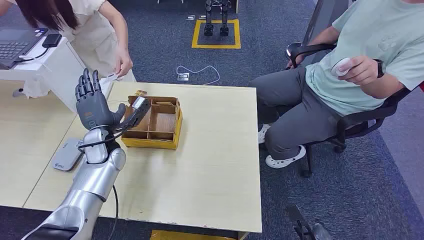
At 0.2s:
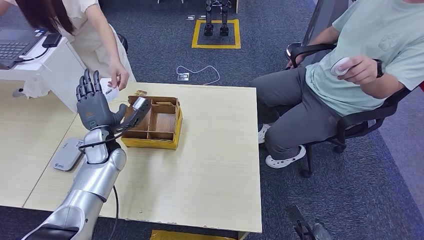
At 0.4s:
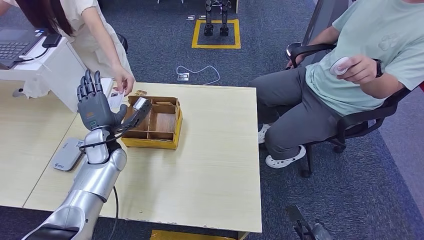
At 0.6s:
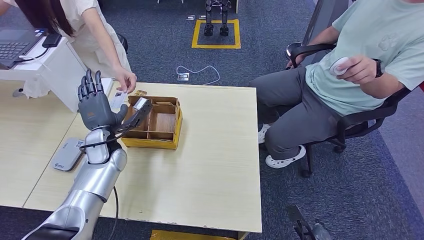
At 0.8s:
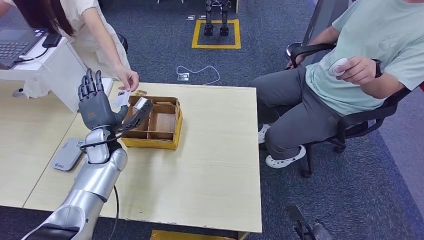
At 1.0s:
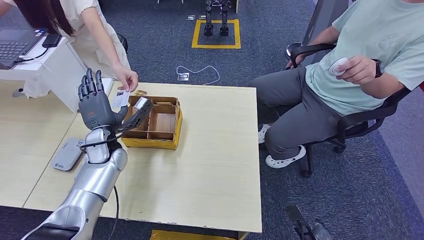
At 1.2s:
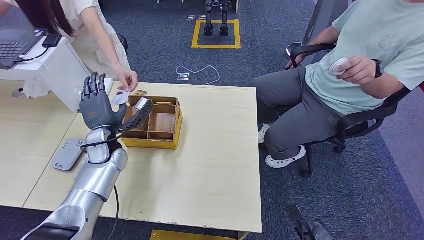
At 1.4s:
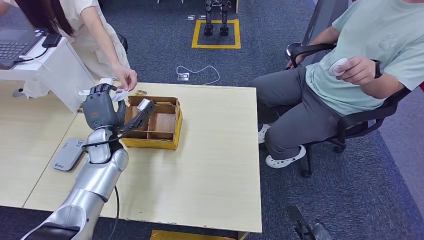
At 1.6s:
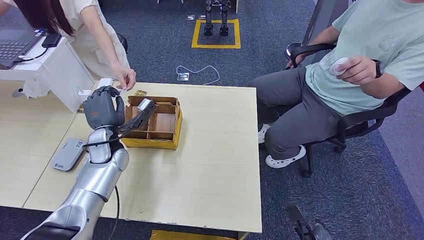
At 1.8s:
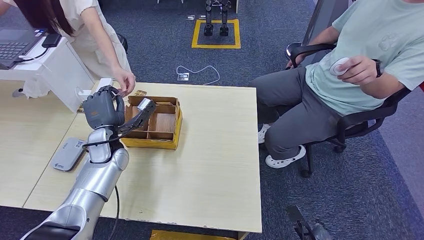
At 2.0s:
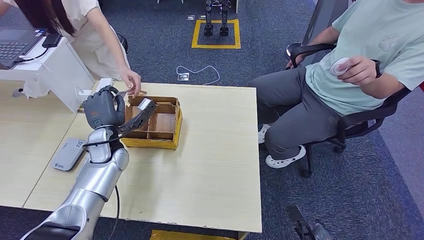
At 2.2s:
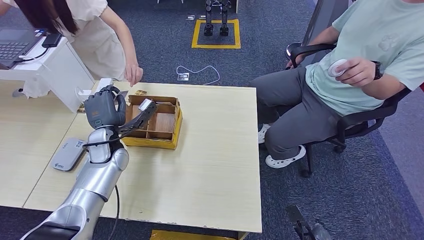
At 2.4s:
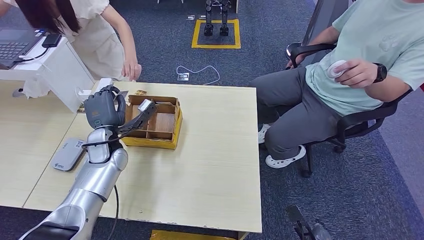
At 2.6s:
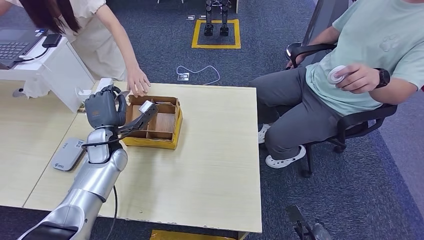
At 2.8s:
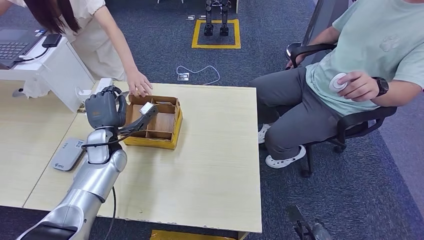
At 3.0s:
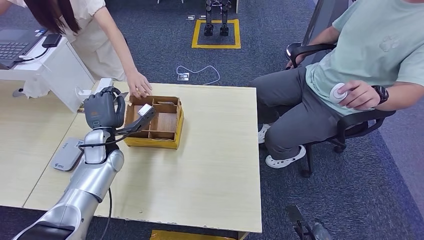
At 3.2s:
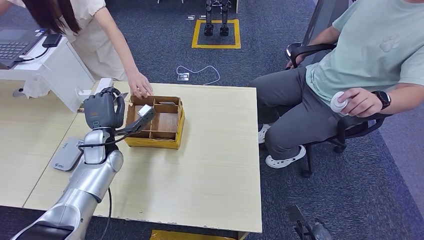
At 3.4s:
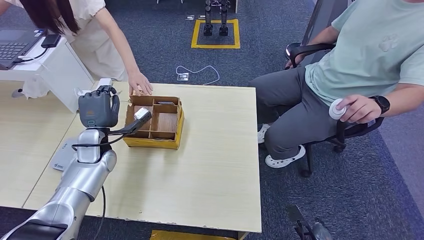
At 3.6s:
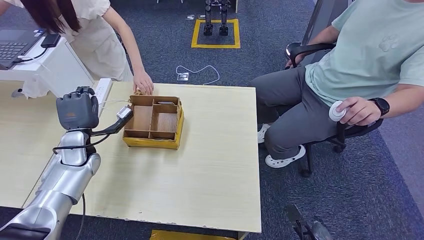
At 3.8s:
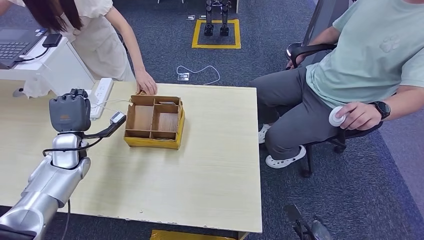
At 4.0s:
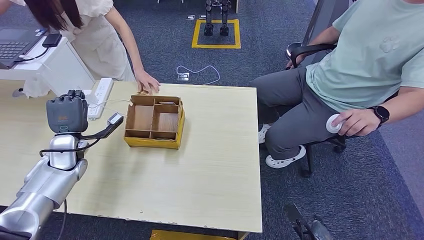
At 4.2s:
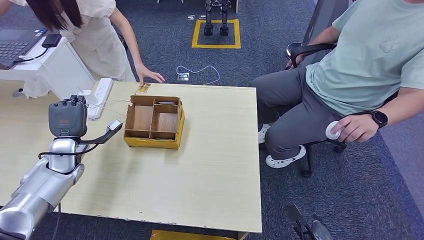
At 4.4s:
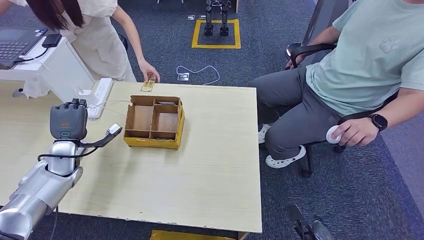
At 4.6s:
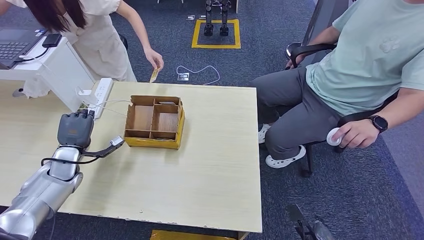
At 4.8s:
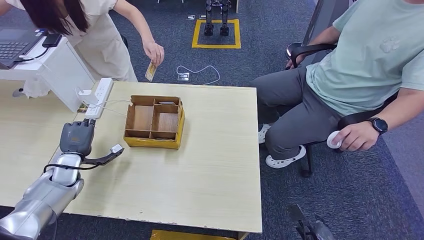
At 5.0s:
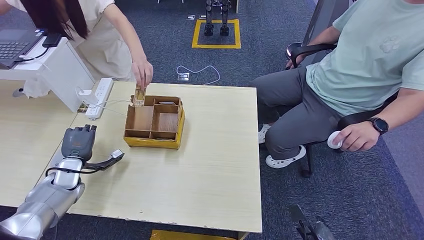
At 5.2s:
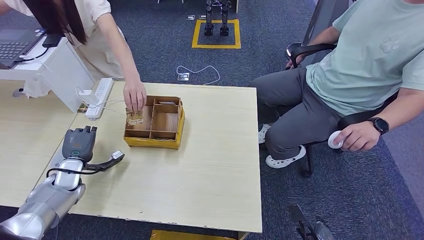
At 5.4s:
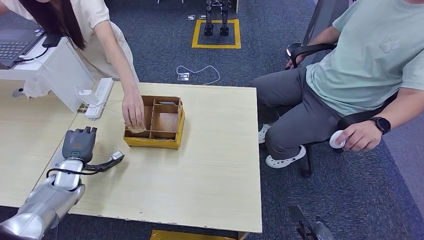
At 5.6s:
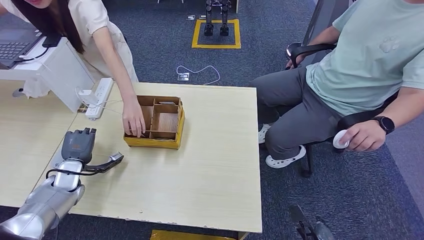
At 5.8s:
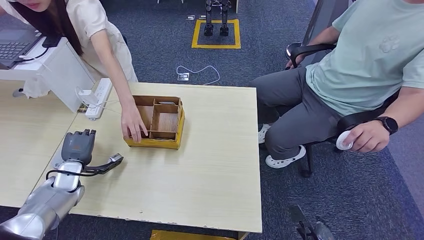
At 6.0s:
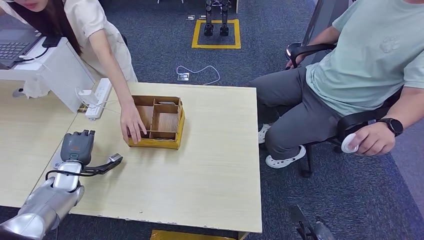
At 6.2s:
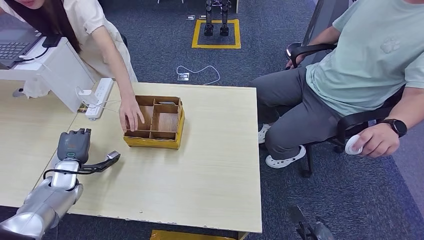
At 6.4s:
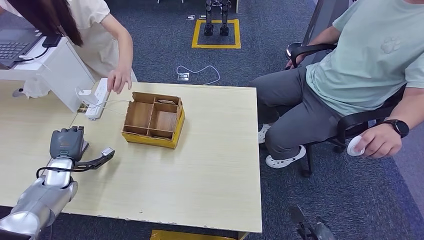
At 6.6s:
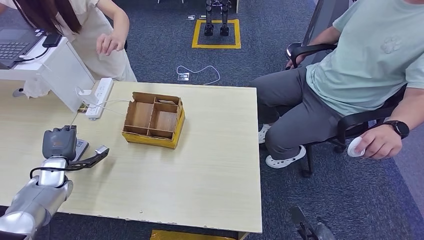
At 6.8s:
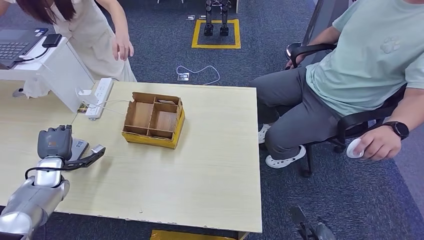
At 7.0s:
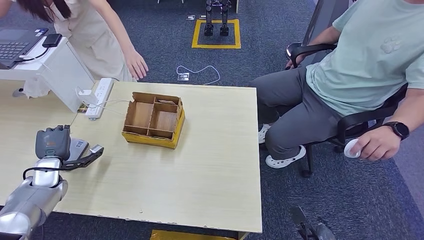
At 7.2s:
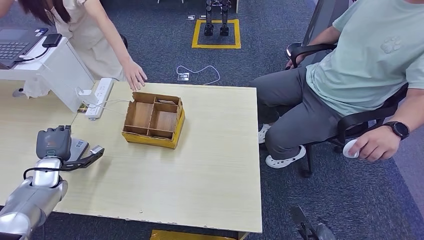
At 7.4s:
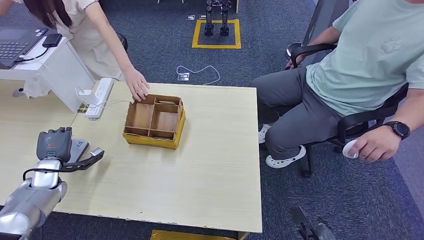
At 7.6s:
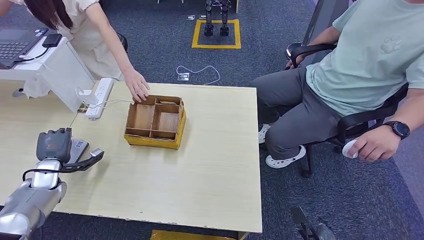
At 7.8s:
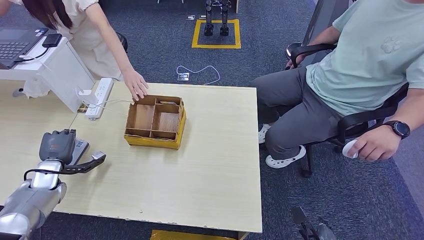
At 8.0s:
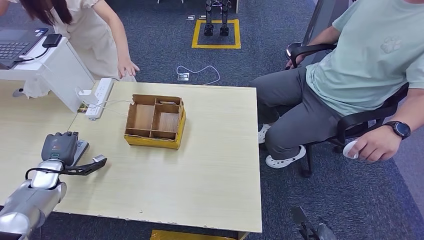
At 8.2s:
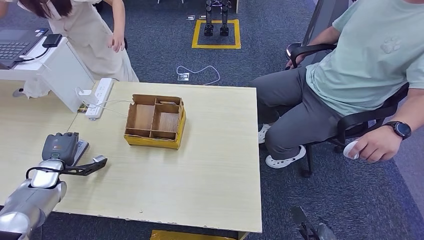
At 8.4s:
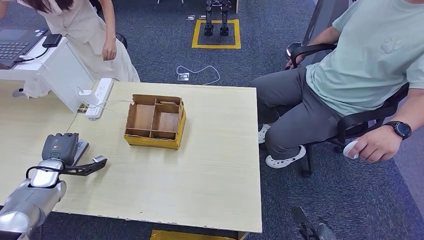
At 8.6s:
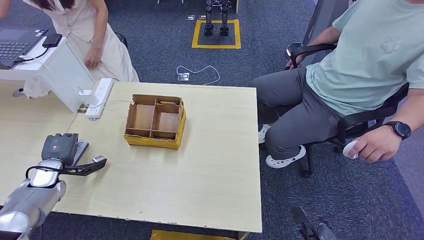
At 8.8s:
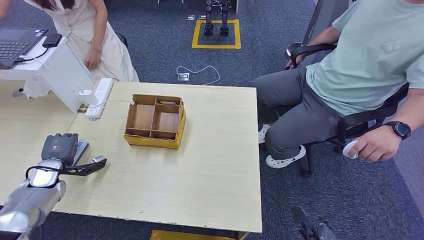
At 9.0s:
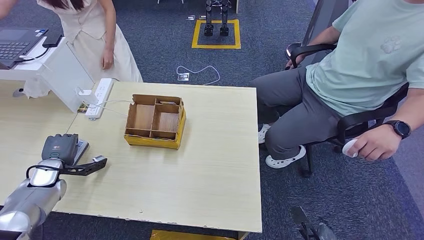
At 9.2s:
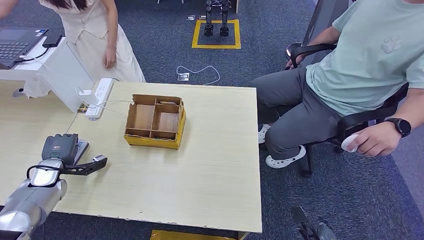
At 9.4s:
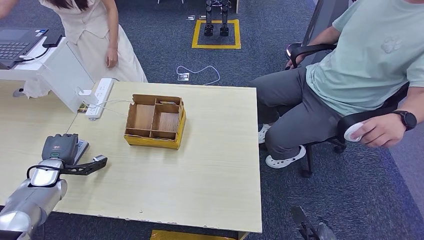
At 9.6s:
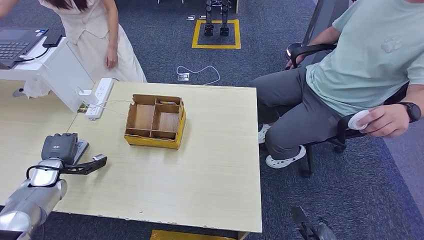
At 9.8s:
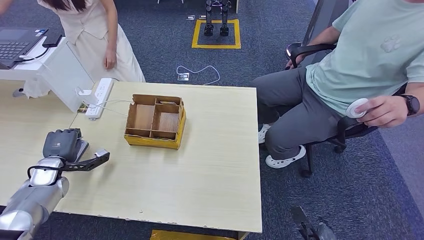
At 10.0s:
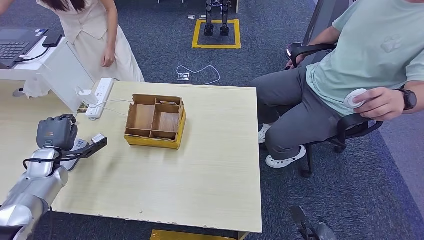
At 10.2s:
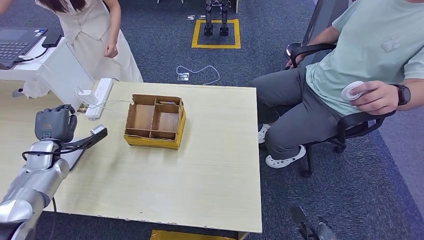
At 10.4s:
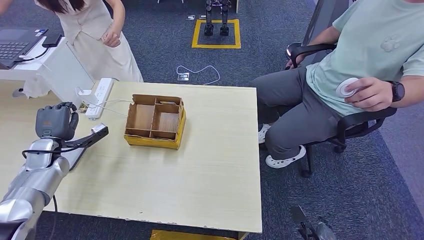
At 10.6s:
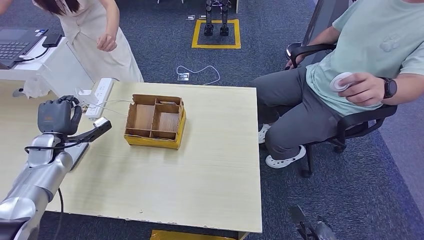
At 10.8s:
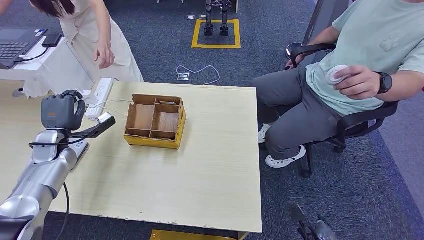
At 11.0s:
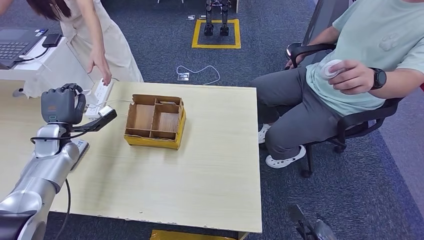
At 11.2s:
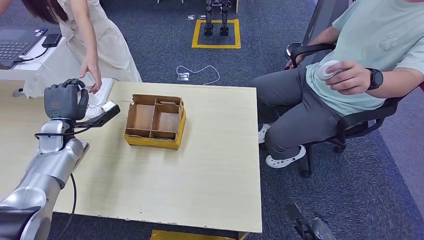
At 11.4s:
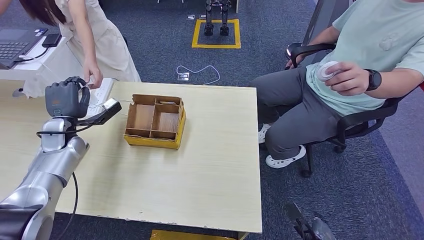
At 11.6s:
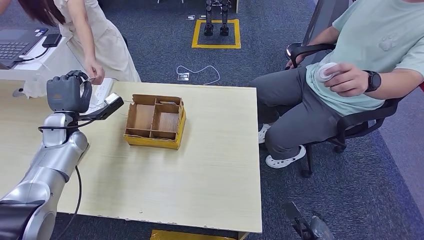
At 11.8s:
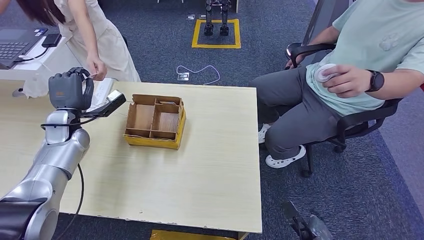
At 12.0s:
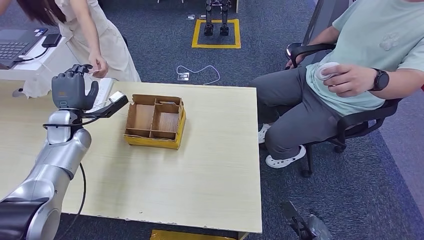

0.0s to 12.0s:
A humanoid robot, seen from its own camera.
Step, 0.0s to 1.8s: Take the ID card from the person's hand.
Step, 2.2s to 9.0s: Place the ID card on the card reader.
1.6s to 3.0s: The hands move only a little.
3.0s to 4.4s: The left hand goes some 10 cm to the left.
4.4s to 6.0s: The left hand goes approximately 5 cm downward.
6.0s to 7.6s: The left hand heads to the left, covering about 5 cm.
7.6s to 9.0s: There are only small adjustments of the hands.
9.0s to 10.4s: The left hand moves upward, roughly 5 cm.
10.4s to 12.0s: The left hand heads to the right, upward and forward, covering approximately 10 cm.

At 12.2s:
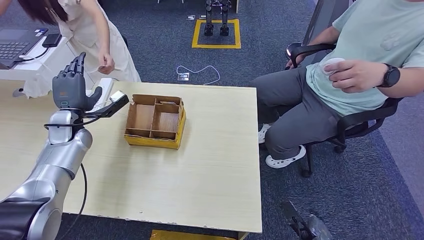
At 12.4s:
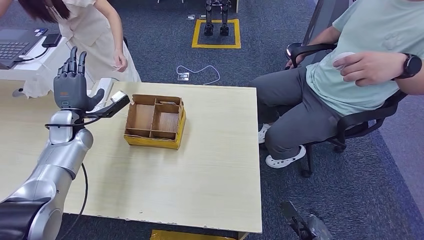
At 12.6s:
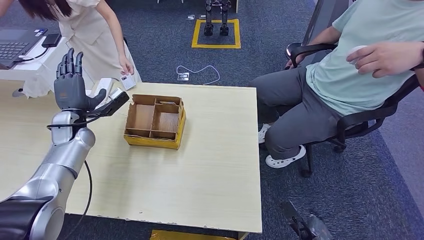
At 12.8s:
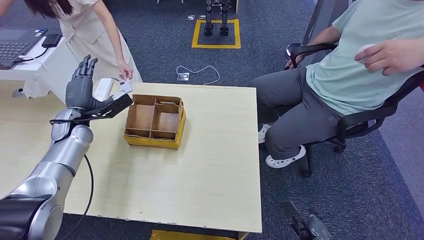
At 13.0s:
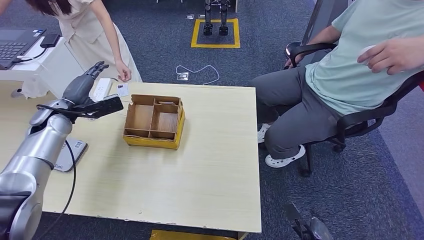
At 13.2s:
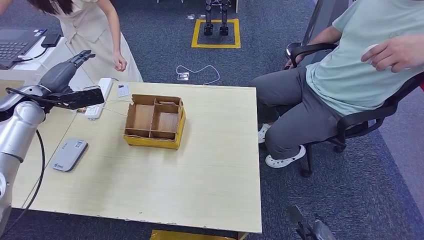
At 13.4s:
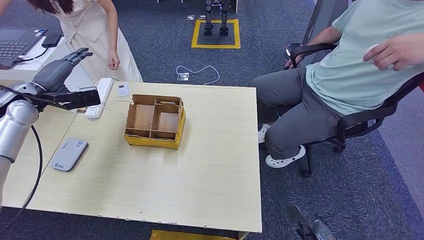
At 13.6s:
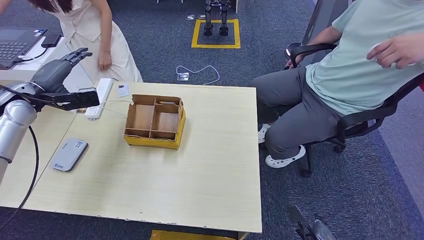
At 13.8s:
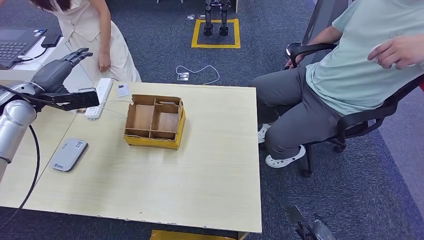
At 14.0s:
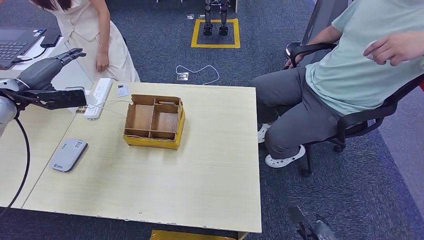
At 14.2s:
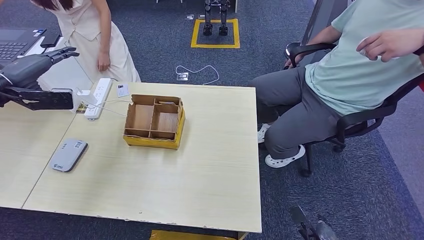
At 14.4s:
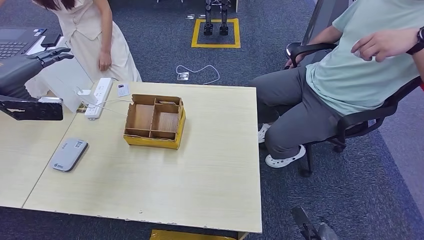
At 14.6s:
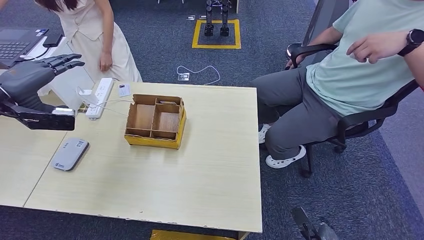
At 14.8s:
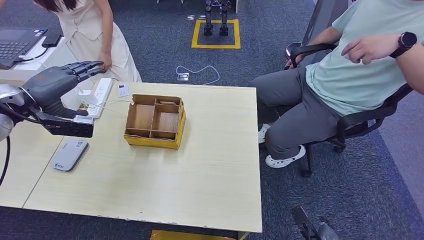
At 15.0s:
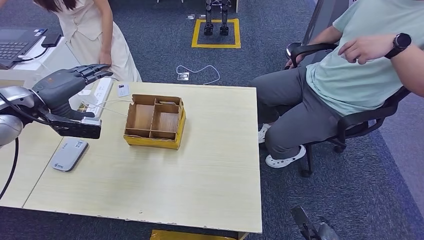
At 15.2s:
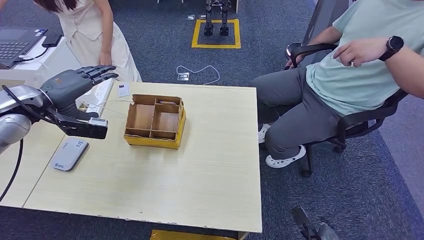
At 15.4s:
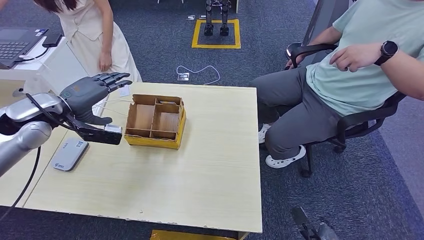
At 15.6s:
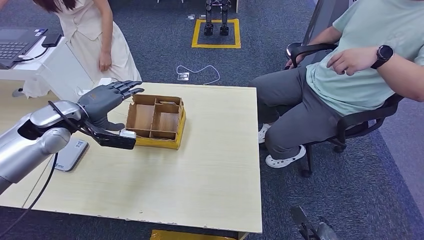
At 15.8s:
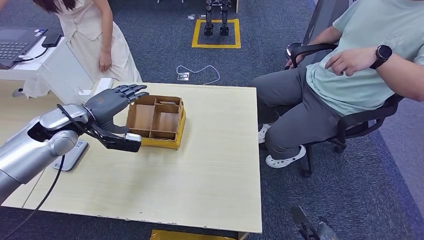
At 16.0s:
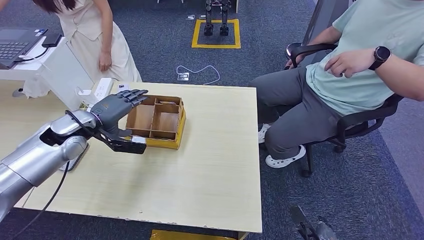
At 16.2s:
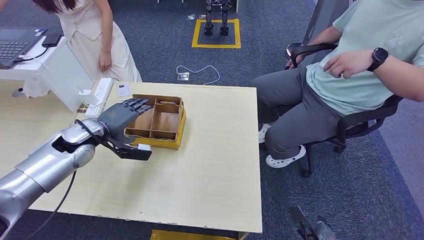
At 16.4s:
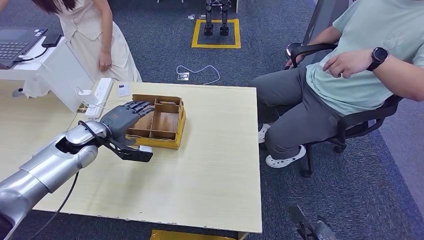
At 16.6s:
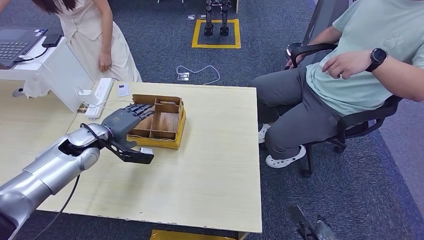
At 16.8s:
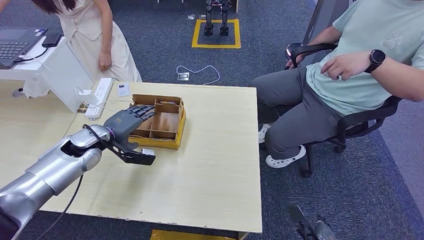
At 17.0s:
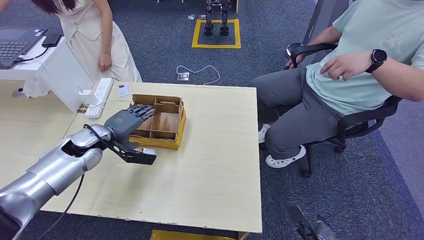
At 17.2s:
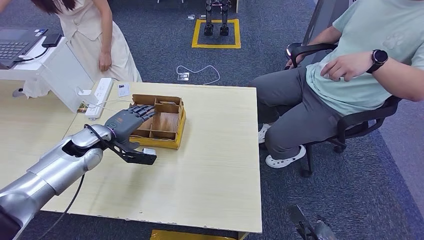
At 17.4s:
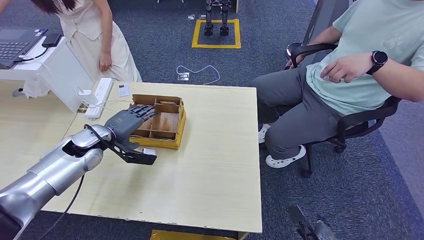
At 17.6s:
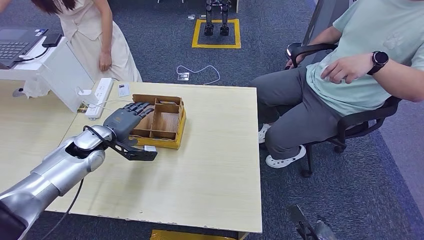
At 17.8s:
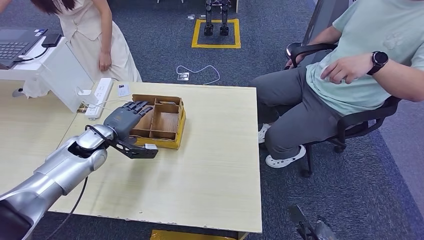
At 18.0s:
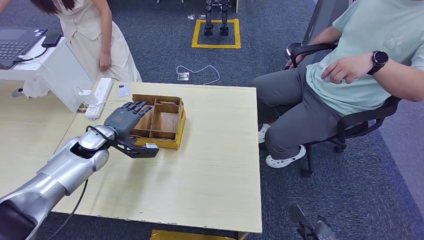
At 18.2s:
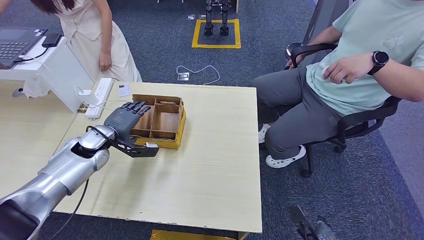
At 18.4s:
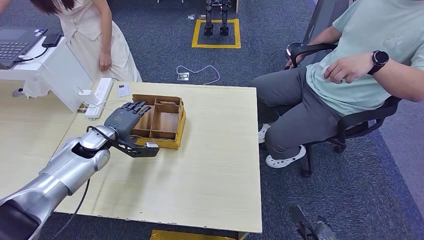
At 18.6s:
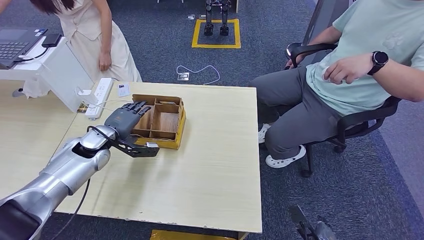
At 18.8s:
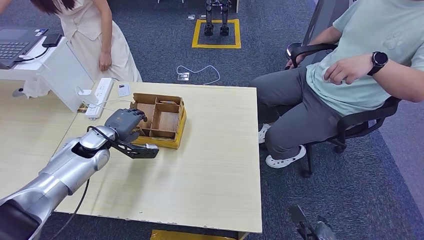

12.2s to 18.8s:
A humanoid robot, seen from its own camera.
12.2s to 13.8s: The left hand heads upward and to the left, covering approximately 15 cm.
13.8s to 15.4s: The left hand goes about 10 cm to the right.
15.4s to 17.2s: The left hand is displaced downward and to the right by approximately 15 cm.
17.2s to 18.8s: There are only small adjustments of the hands.
